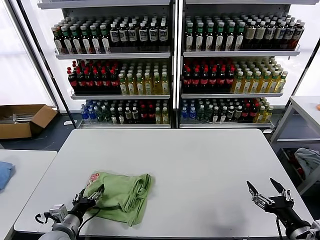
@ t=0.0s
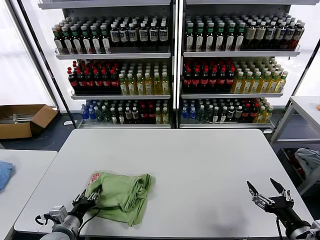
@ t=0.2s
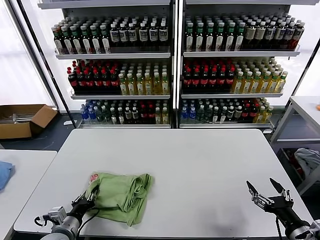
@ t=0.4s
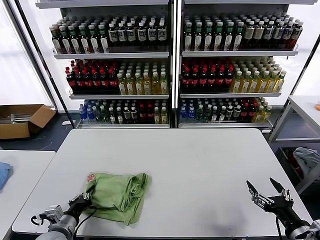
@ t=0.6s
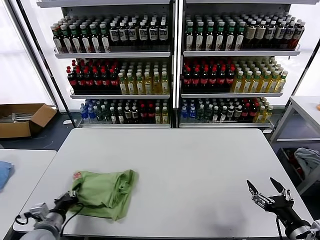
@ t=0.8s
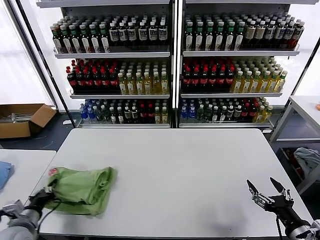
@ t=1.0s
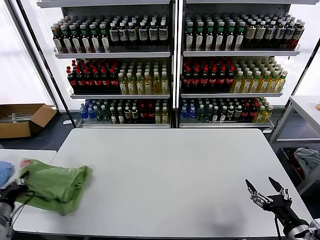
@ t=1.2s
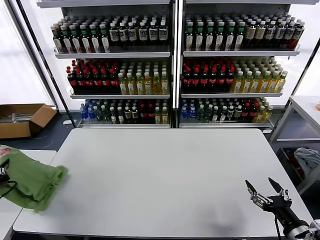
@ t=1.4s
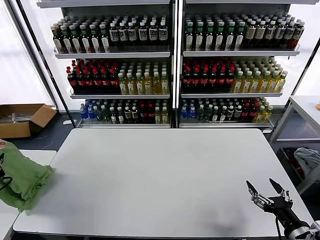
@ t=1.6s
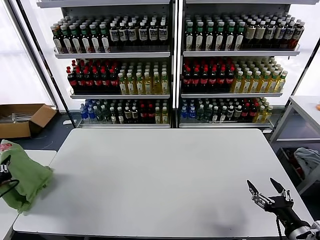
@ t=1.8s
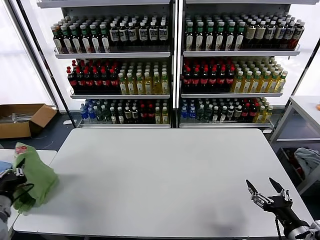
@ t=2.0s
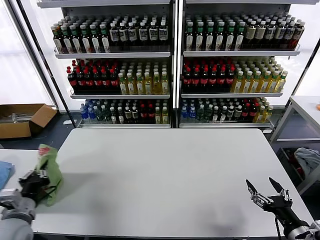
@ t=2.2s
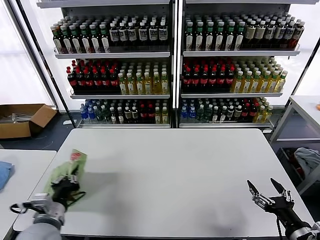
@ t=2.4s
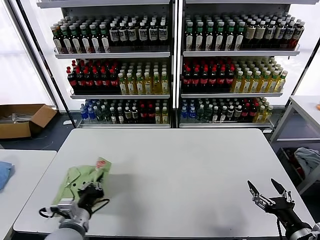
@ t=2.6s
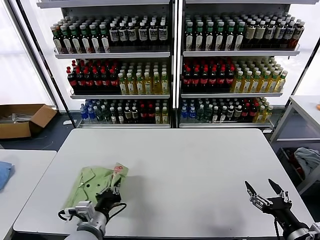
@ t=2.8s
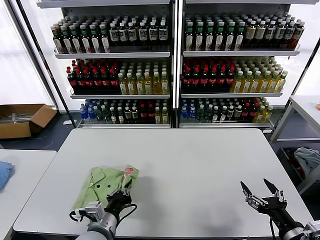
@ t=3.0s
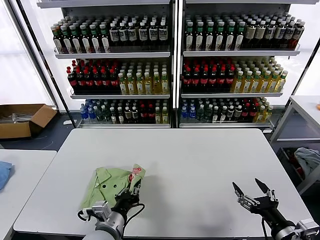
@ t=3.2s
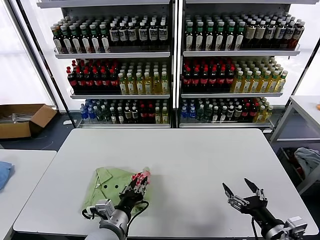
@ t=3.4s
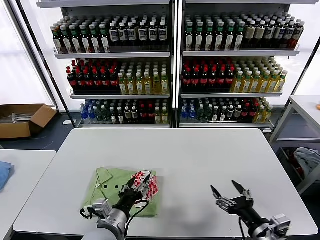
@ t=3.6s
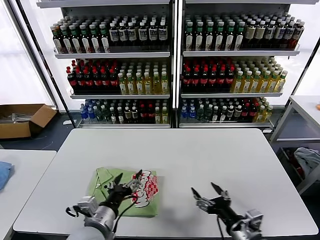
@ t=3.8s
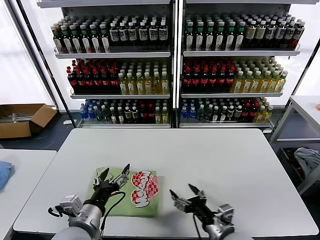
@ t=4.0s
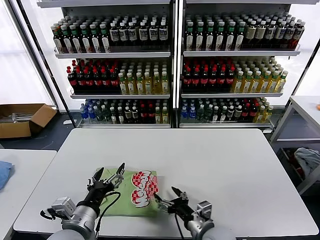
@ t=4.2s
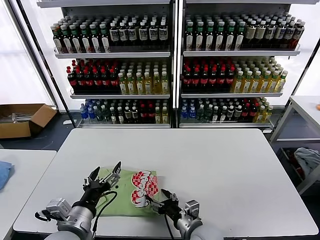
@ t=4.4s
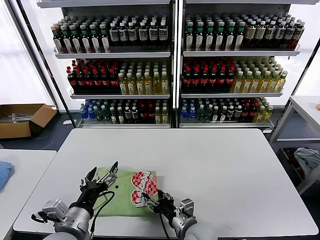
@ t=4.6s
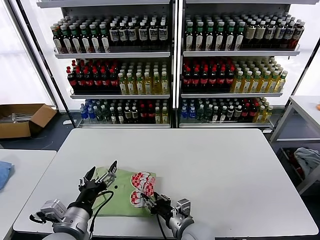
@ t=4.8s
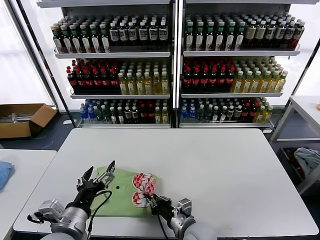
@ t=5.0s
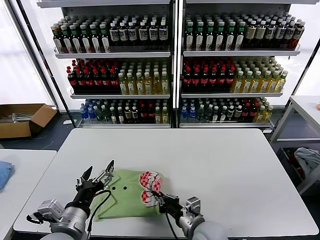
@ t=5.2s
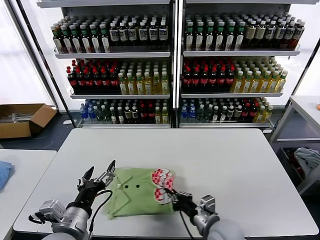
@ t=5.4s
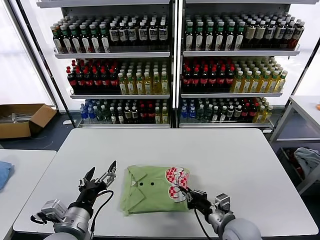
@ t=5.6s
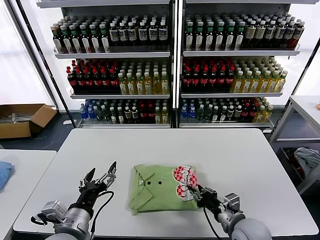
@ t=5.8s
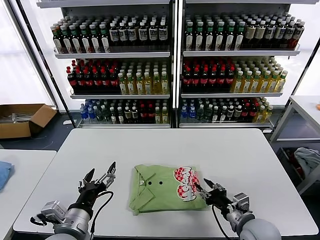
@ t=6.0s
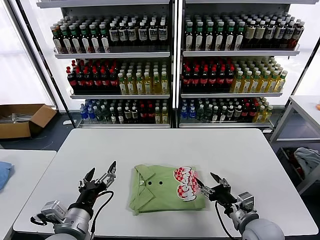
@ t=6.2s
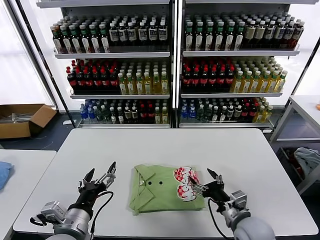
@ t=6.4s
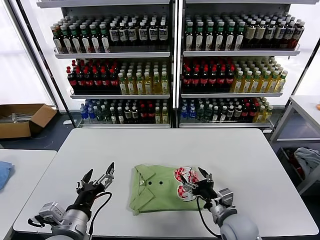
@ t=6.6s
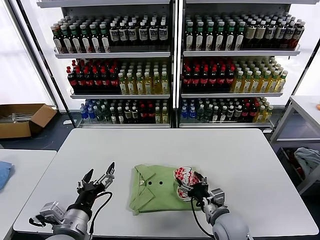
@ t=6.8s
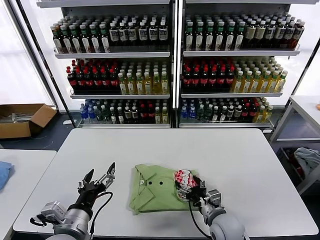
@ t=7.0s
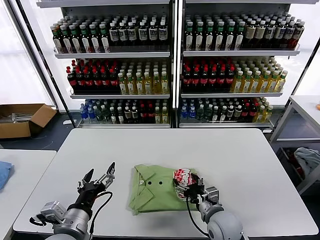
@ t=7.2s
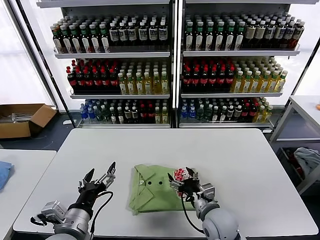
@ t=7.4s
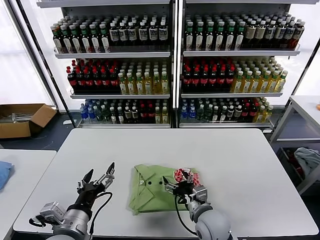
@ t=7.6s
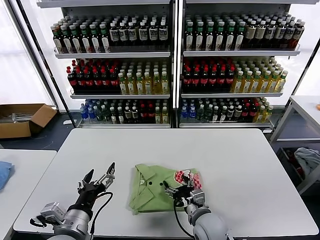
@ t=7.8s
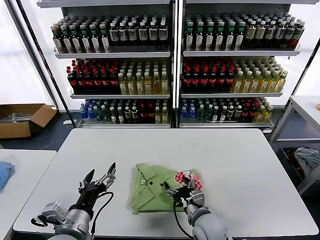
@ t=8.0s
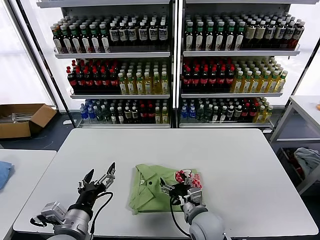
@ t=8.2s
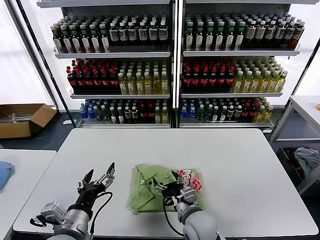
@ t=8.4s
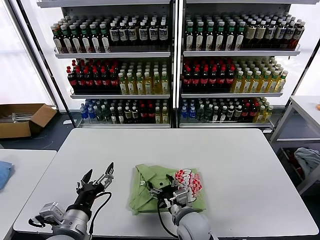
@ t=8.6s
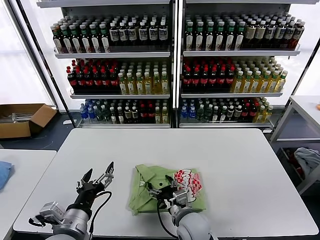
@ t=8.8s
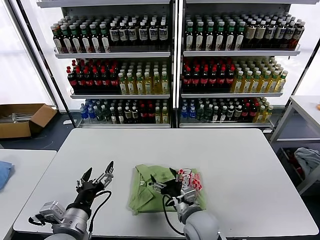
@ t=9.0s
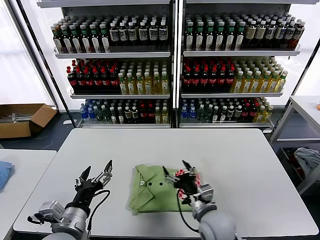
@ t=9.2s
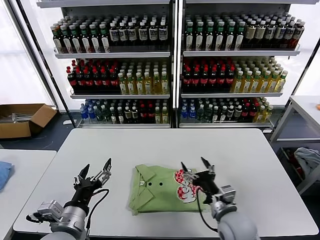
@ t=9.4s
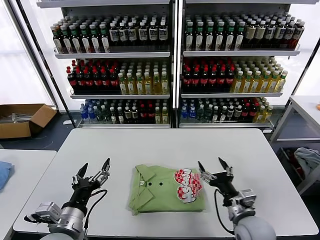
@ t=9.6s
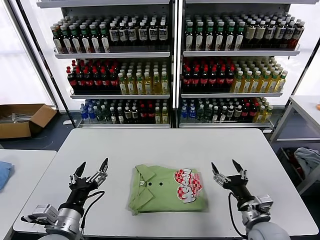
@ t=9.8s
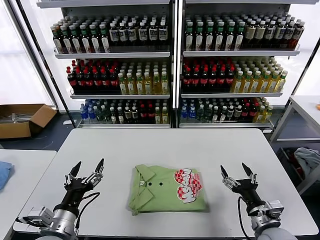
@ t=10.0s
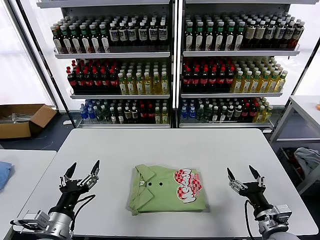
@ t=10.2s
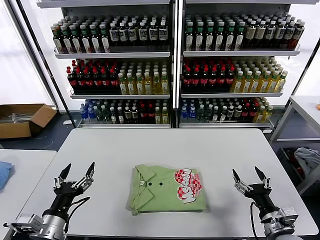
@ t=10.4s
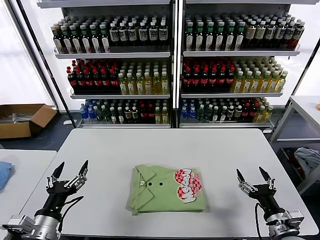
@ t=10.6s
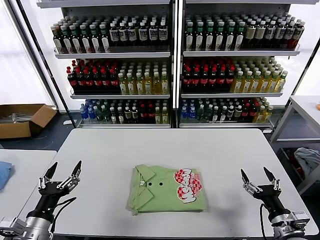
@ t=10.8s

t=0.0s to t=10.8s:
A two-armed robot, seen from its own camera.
Task of the whole recording: fold and organize the clothes.
Step, t=0.0s to t=3.6s: Flip the folded clothes over with left gripper.
Step, t=3.8s to t=8.8s: Drag the clothes to the center of the table.
t=0.0s to t=1.6s: The left gripper travels to the left and upward by some 25 cm, and closes up.
t=1.6s to t=3.0s: The left gripper goes about 30 cm to the right.
t=3.0s to t=4.6s: The right gripper travels to the left, forward and downward by approximately 30 cm. The left gripper is displaced upward by roughly 5 cm, and opens.
t=4.6s to t=6.2s: The right gripper is displaced to the right by about 15 cm, and closes and opens again.
t=6.2s to t=7.8s: The right gripper heads to the left, covering approximately 15 cm.
t=7.8s to t=9.2s: The grippers make only small movements.
t=9.2s to t=10.8s: The right gripper is displaced to the right by roughly 25 cm, while the left gripper goes roughly 10 cm to the left.
